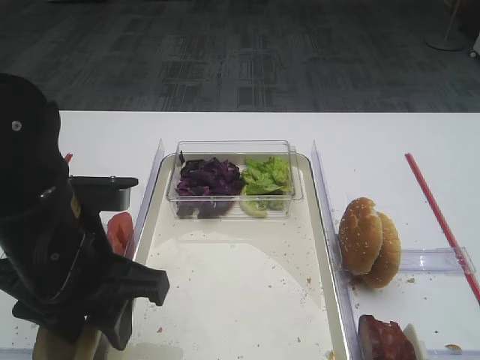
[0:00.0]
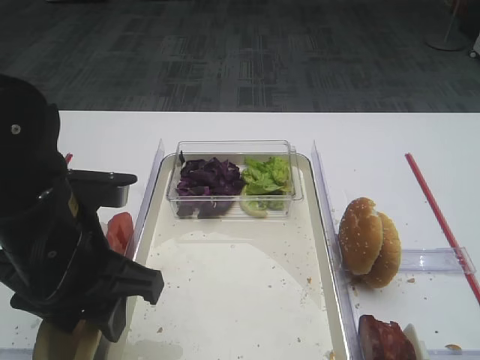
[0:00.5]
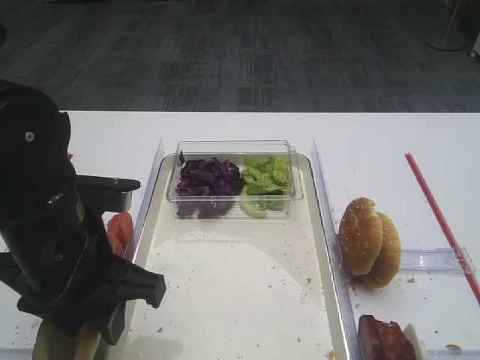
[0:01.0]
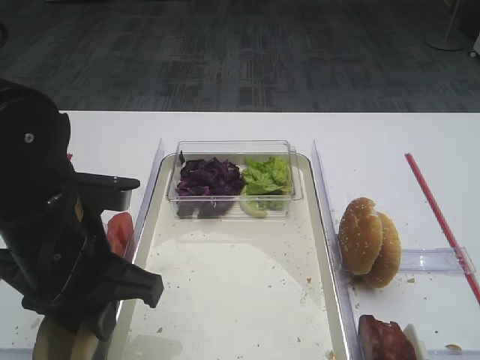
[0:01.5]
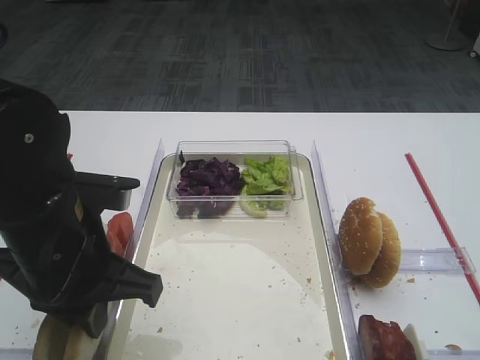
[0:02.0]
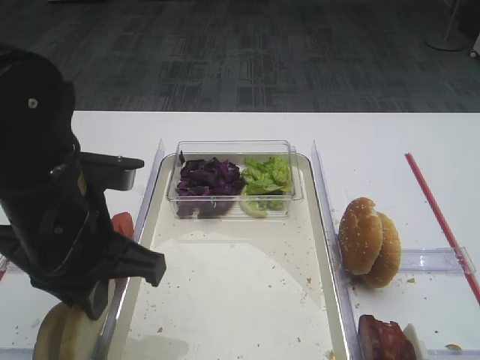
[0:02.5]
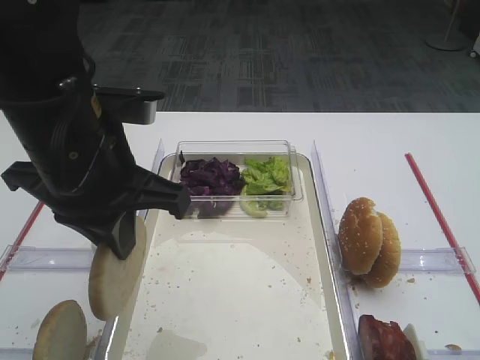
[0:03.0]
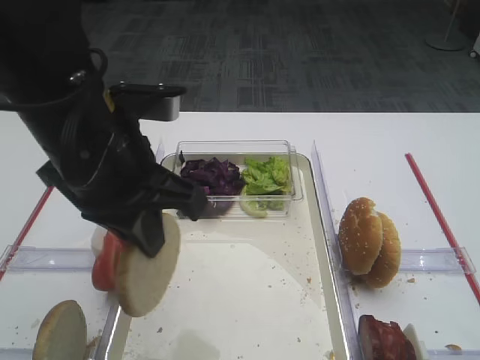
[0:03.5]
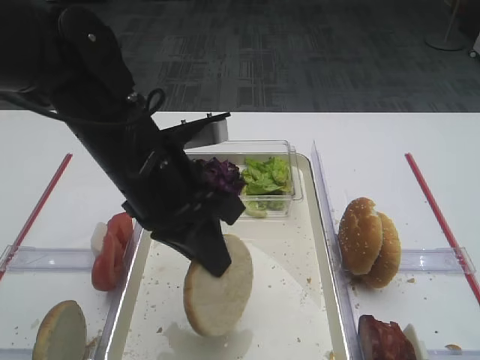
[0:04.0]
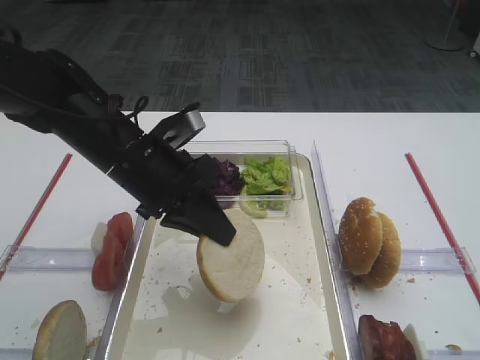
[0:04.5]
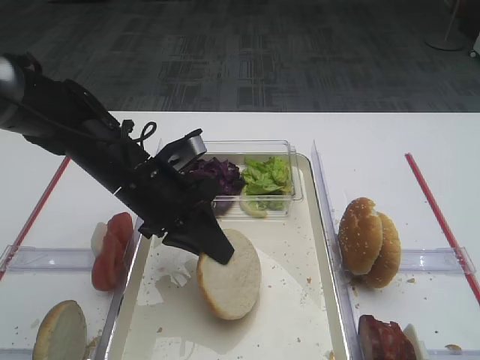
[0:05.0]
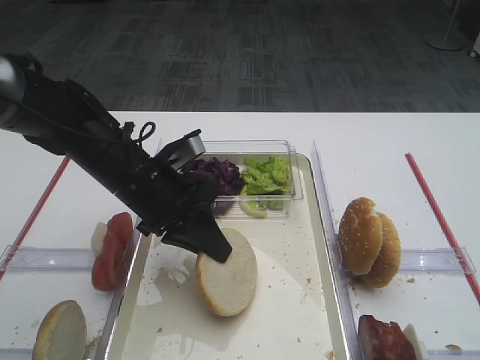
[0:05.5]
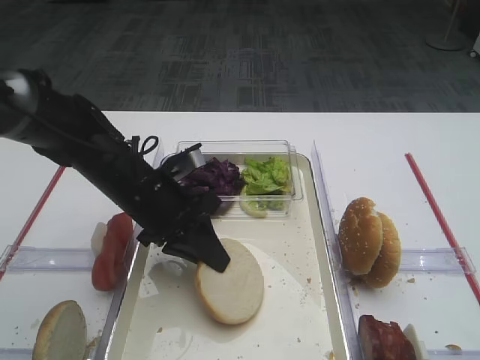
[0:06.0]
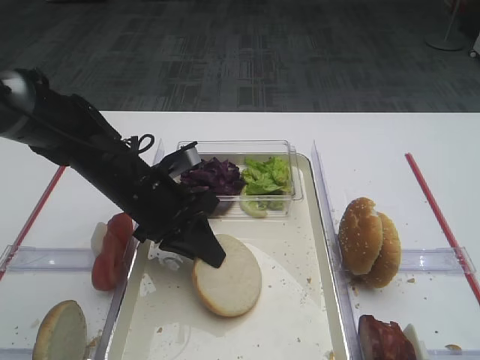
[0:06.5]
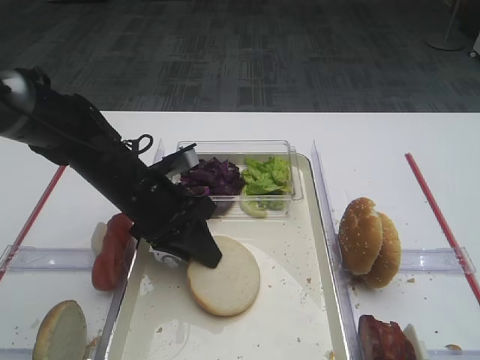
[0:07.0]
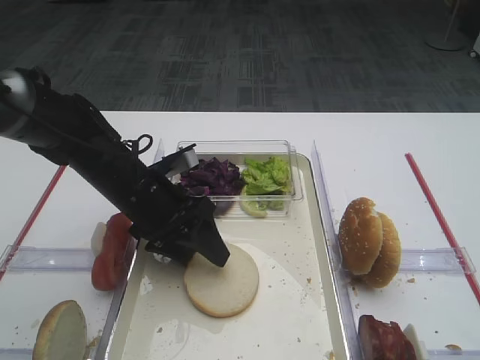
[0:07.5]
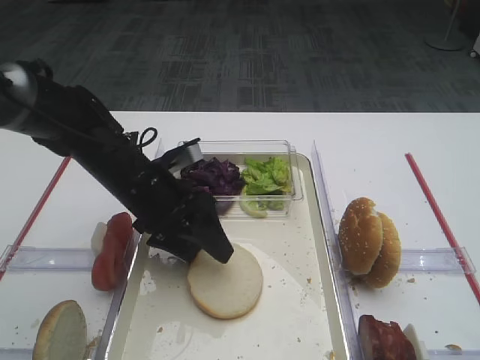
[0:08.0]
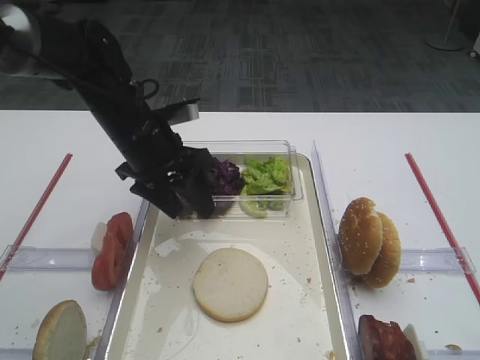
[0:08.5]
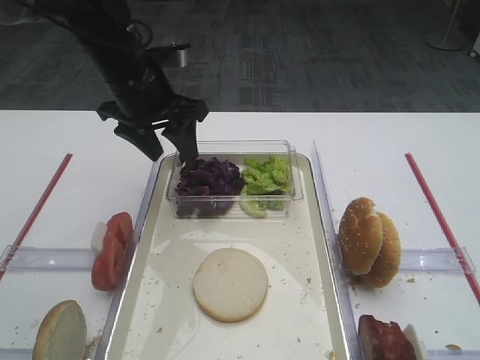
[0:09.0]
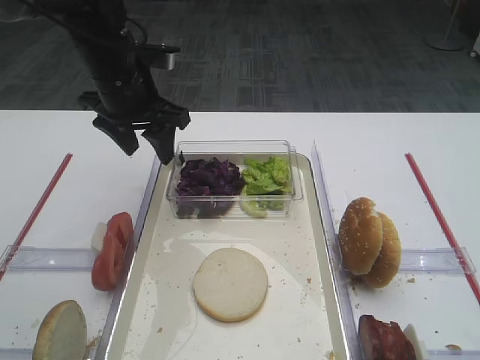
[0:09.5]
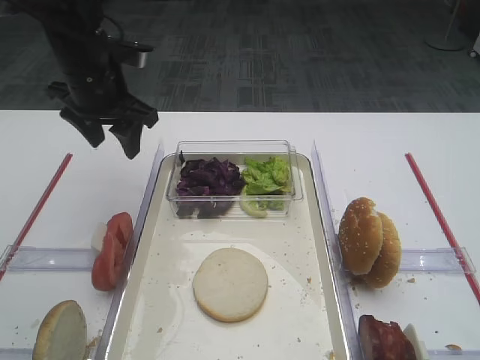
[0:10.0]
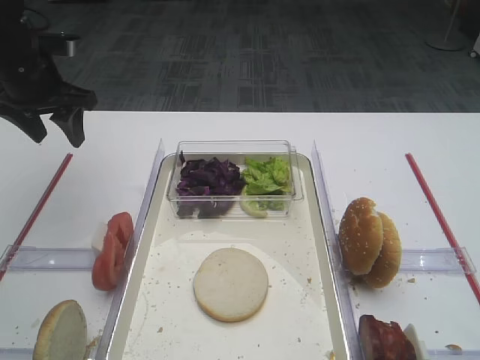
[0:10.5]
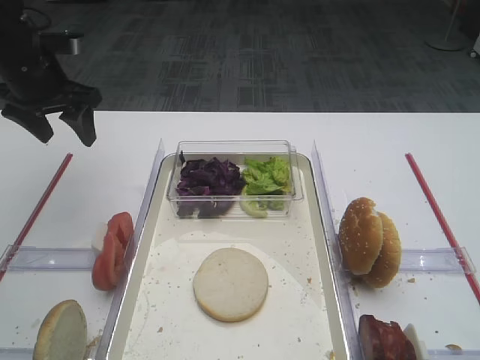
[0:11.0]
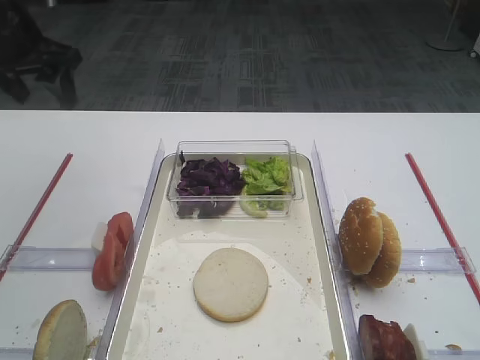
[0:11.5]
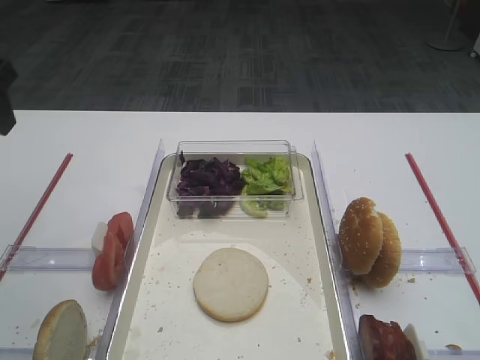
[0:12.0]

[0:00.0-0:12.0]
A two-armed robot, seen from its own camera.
Step, 0:00.0 to 0:02.5: Pick up the bread slice with the left gripper.
Step, 0:03.0 to 0:08.0: Place the bread slice on the tray with the left gripper.
0:00.0 to 0:02.0: The left gripper closes.
0:02.0 to 0:04.0: The left gripper moves to the right and forward, some 10 cm.
0:04.0 to 0:06.0: The left gripper is displaced downward and forward by some 10 cm.
0:06.0 to 0:08.0: The left gripper opens its fingers.
0:08.0 to 0:10.0: The left gripper moves upward, forward and to the left, some 15 cm.
0:10.0 to 0:12.0: The left gripper shifts approximately 20 cm backward, upward and to the left.

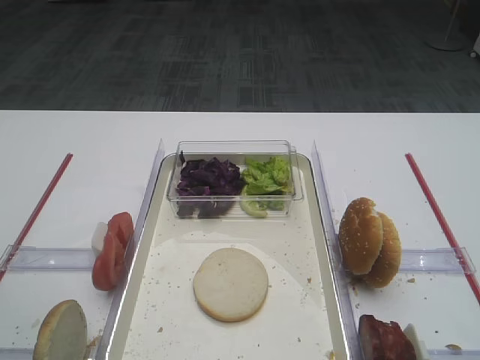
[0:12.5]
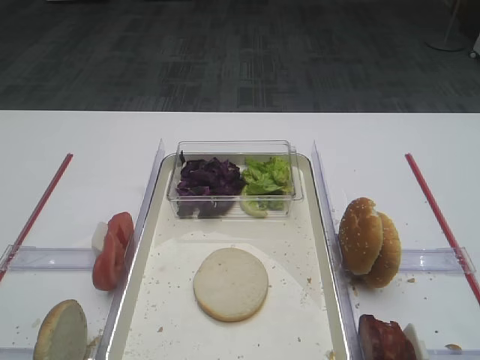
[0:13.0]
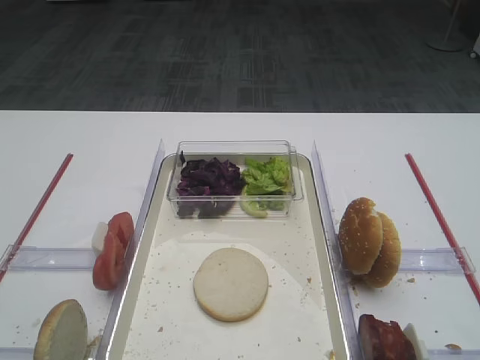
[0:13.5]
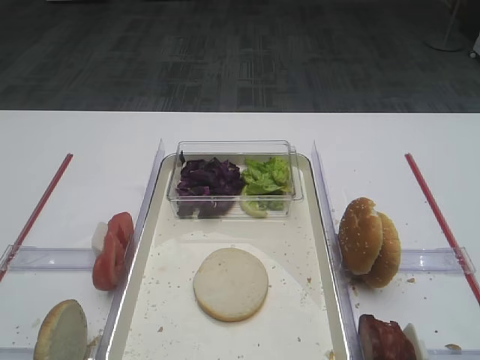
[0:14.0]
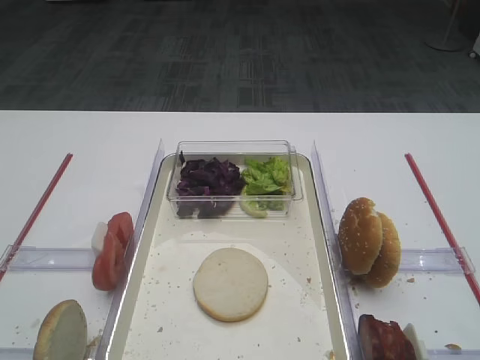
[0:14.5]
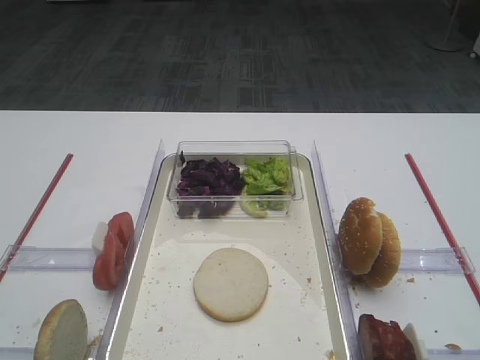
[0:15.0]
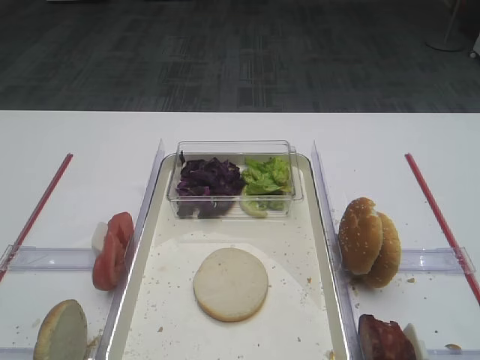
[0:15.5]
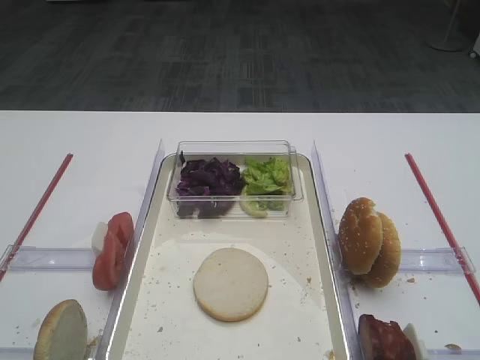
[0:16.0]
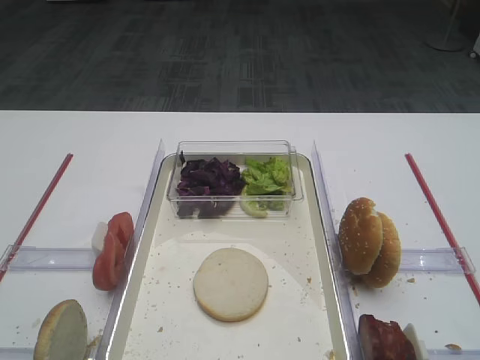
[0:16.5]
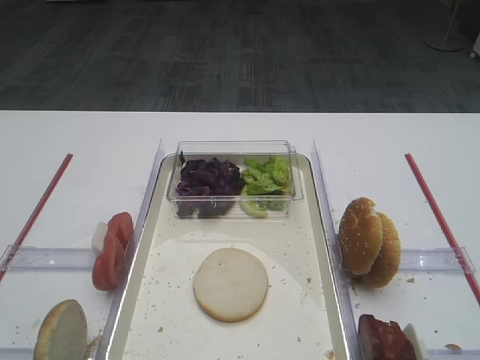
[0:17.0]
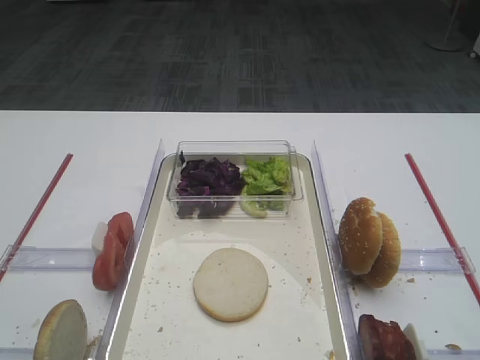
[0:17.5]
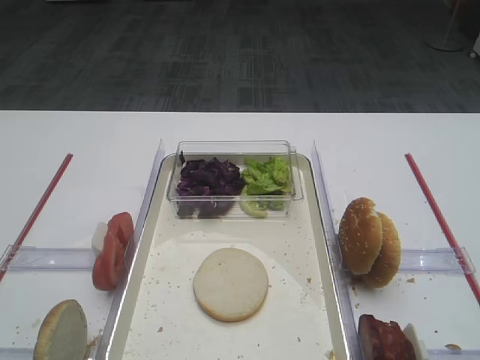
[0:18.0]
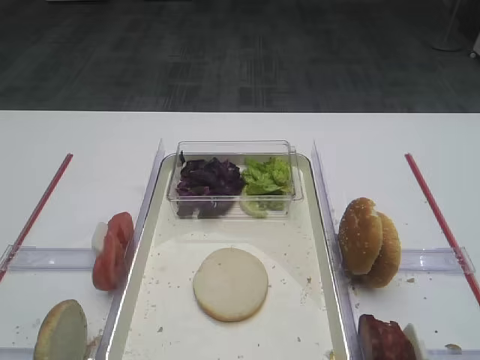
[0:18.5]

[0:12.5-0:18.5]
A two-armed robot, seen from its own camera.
0:14.5 to 0:18.5: Both grippers stay about where they are.

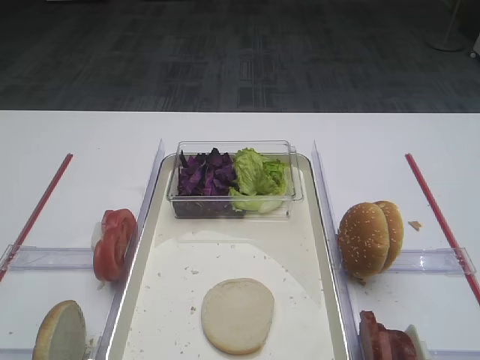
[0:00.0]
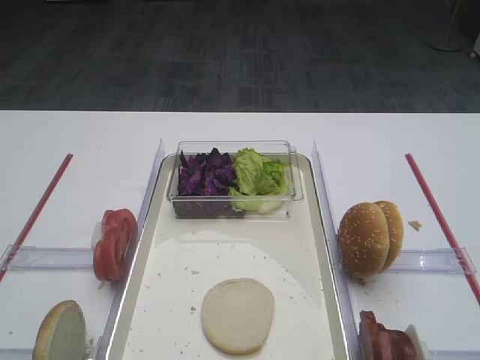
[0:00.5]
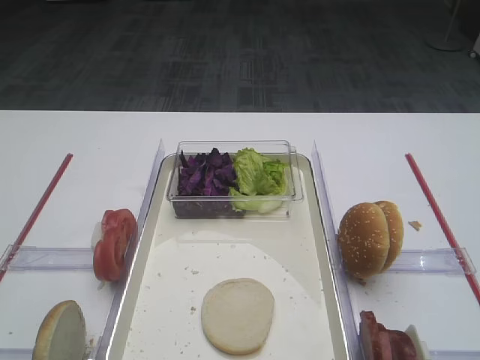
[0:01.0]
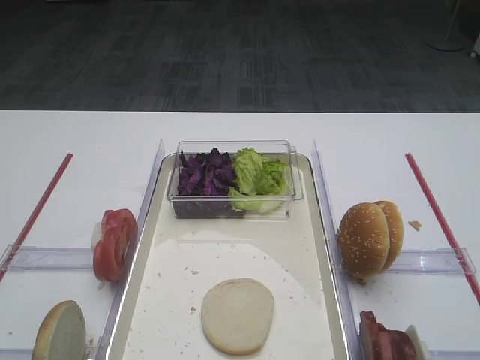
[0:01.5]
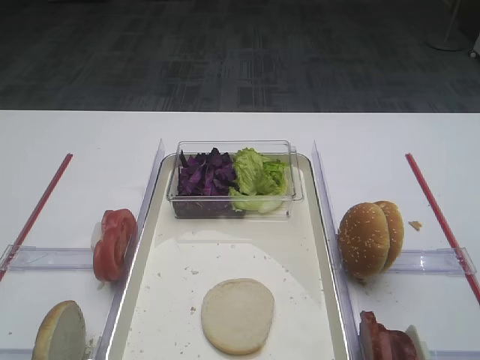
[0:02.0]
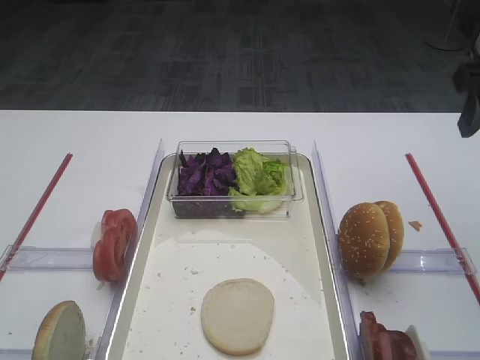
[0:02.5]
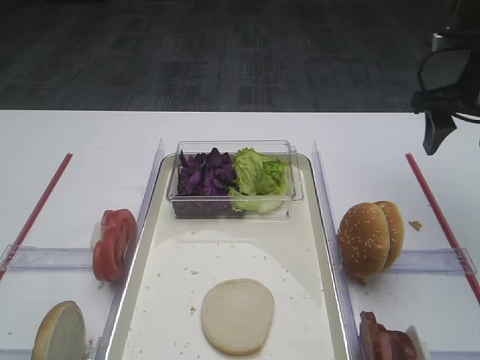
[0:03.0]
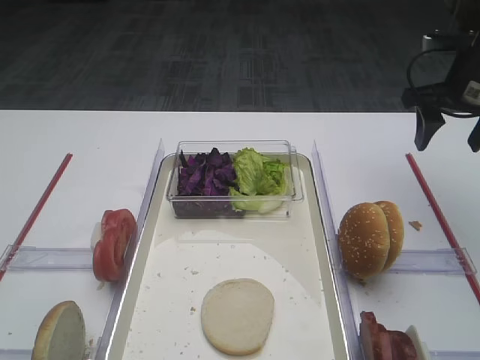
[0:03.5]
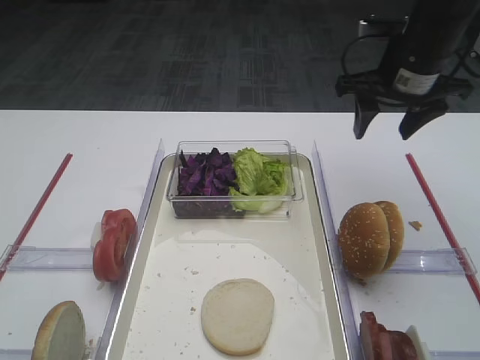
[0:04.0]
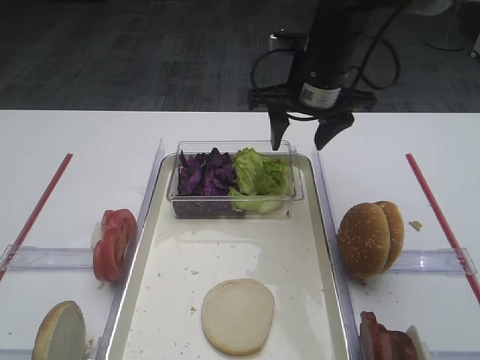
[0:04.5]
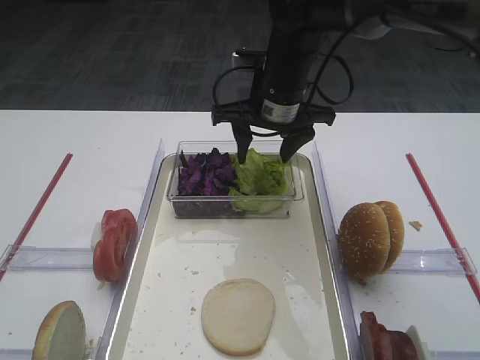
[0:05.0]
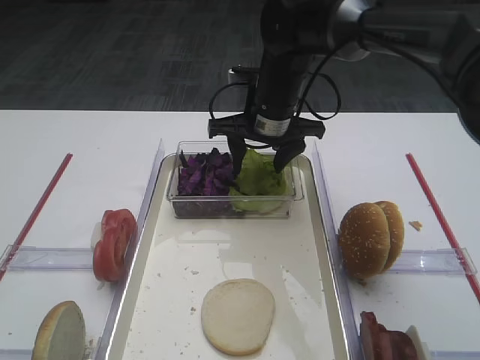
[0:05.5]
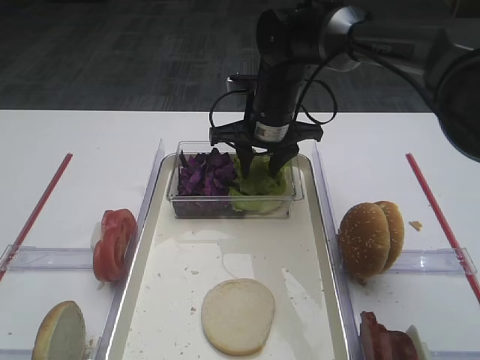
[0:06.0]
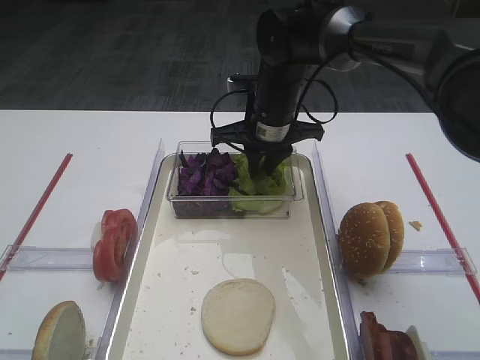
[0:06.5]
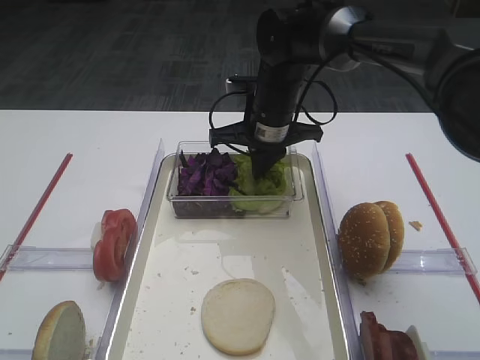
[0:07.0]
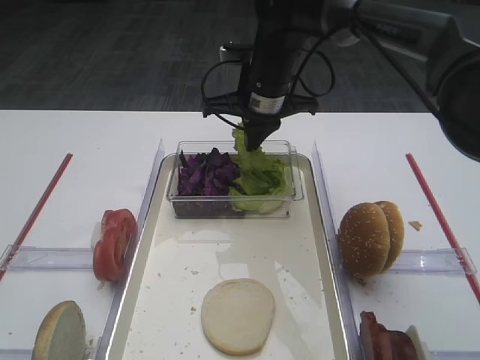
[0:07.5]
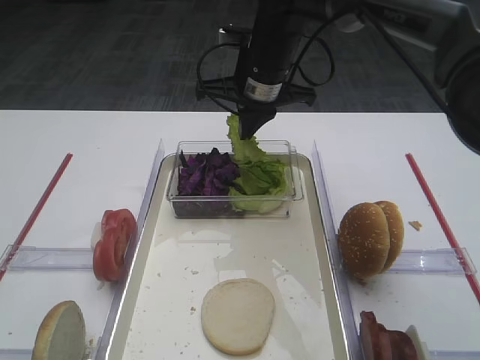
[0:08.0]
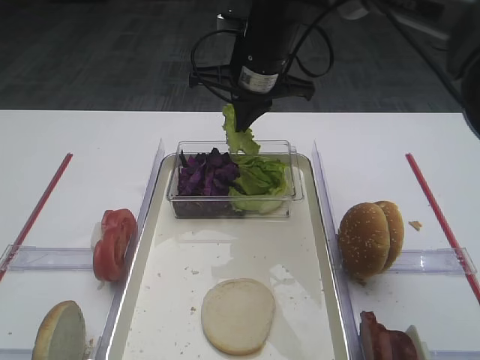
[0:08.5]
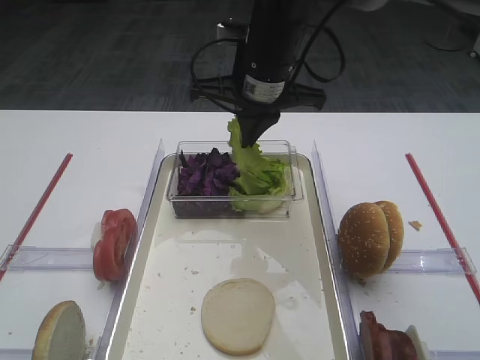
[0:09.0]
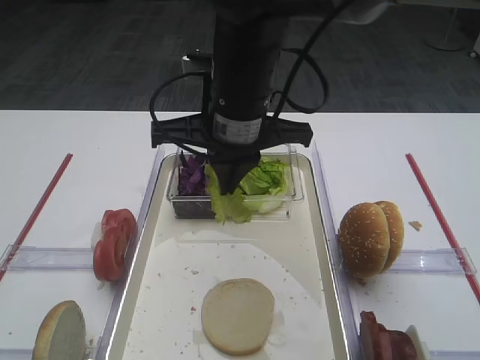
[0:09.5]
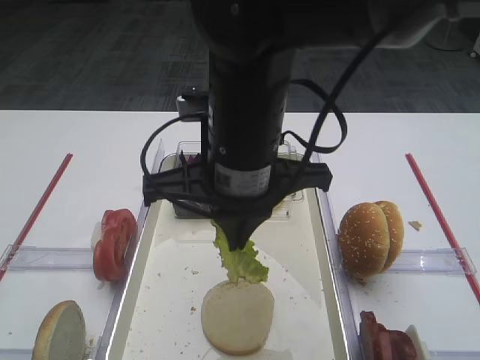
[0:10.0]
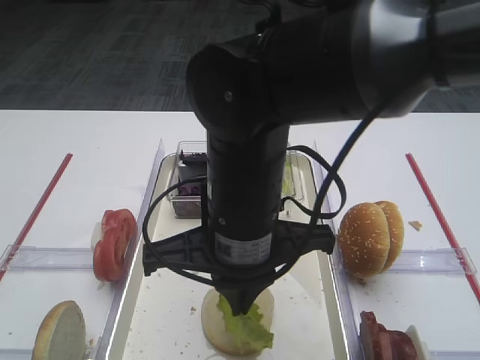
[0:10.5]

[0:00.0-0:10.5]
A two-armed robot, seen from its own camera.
Step, 0:00.0 to 0:07.5: Pick up the lettuce leaf with the right gripper.
0:02.0 to 0:04.0: The right gripper travels forward by roughly 25 cm.
0:04.0 to 0:06.5: The right gripper shifts some 20 cm to the left and downward, and closes.
0:06.5 to 0:08.5: The right gripper shifts approximately 10 cm upward.
0:08.5 to 0:10.5: The right gripper travels backward by approximately 20 cm.
